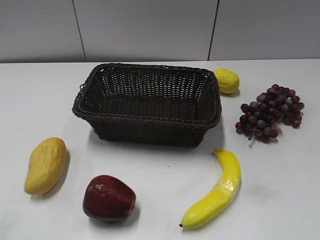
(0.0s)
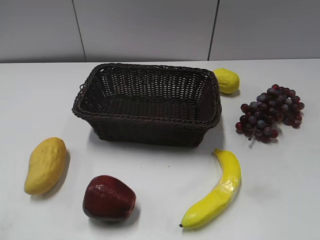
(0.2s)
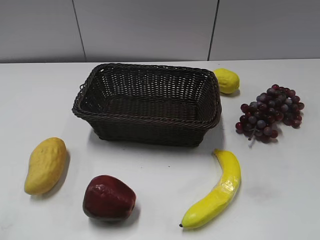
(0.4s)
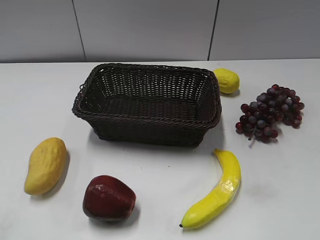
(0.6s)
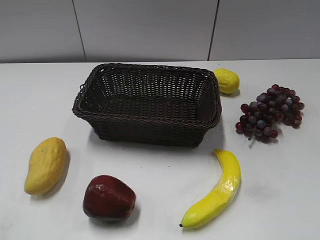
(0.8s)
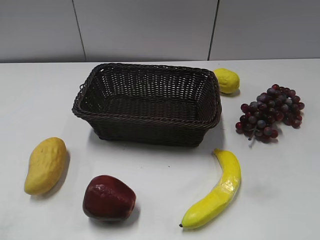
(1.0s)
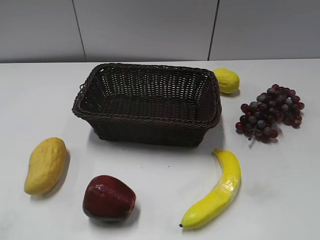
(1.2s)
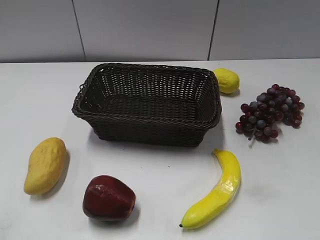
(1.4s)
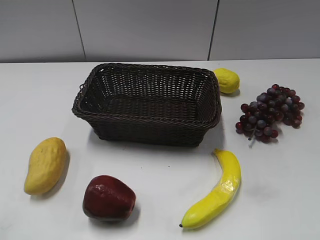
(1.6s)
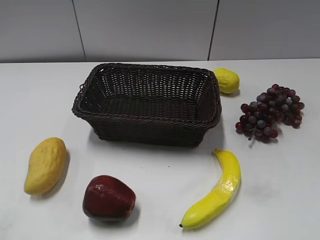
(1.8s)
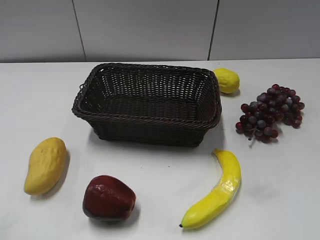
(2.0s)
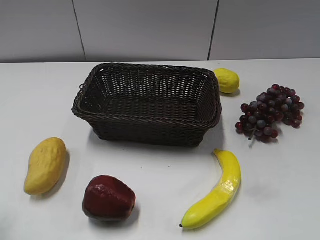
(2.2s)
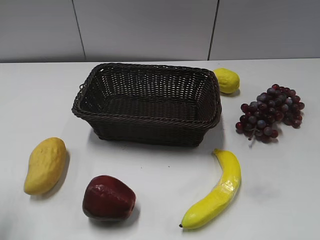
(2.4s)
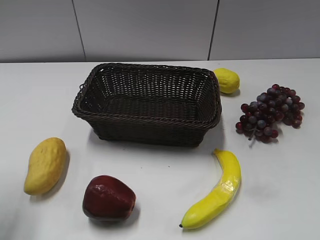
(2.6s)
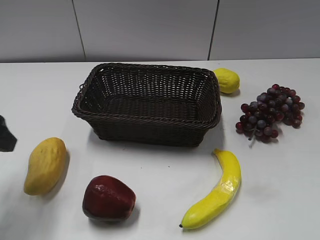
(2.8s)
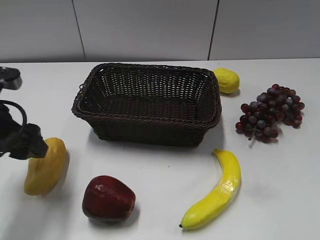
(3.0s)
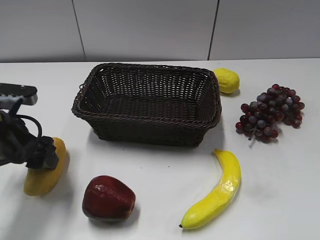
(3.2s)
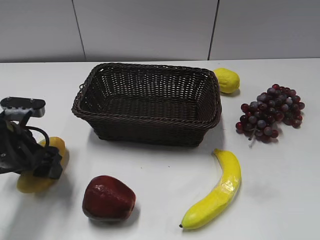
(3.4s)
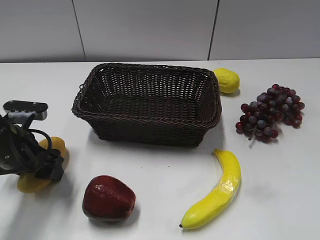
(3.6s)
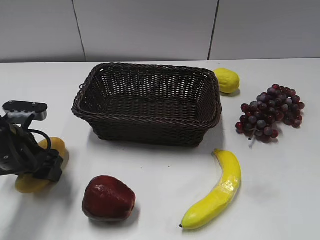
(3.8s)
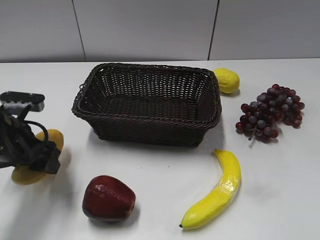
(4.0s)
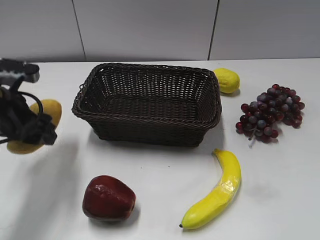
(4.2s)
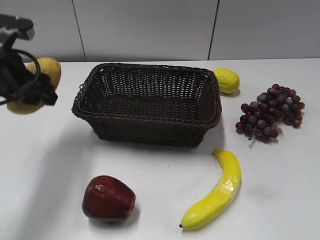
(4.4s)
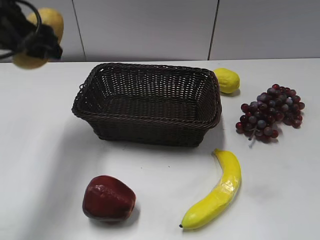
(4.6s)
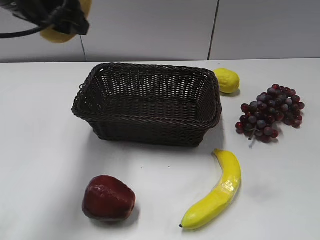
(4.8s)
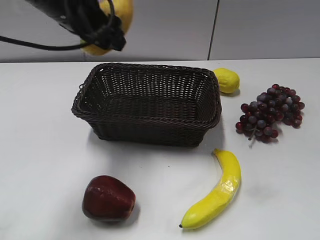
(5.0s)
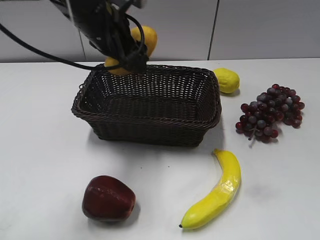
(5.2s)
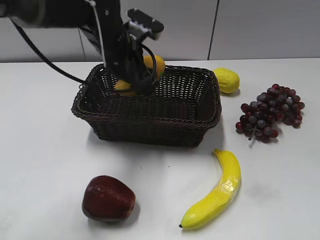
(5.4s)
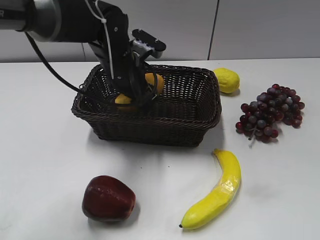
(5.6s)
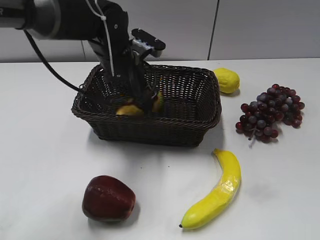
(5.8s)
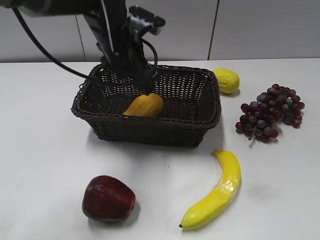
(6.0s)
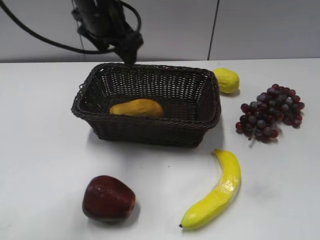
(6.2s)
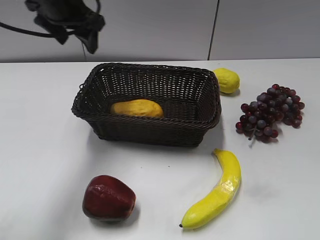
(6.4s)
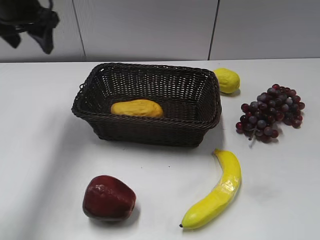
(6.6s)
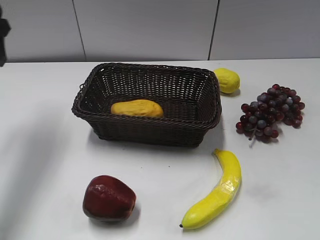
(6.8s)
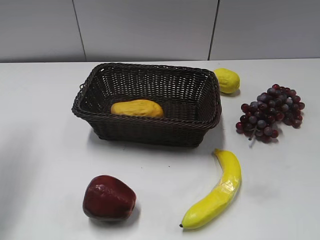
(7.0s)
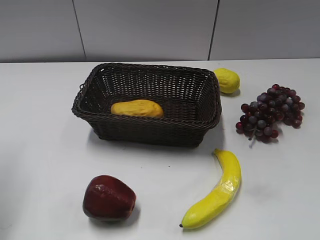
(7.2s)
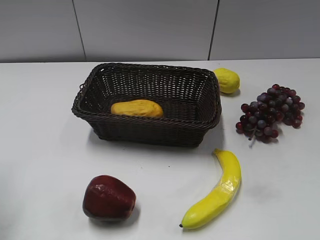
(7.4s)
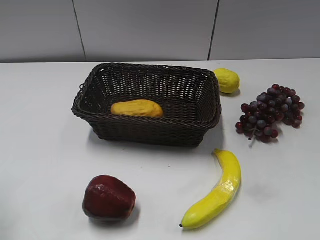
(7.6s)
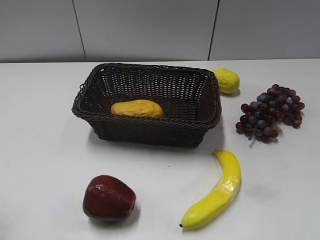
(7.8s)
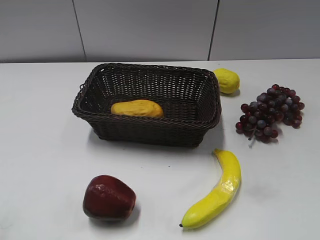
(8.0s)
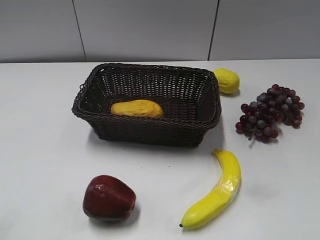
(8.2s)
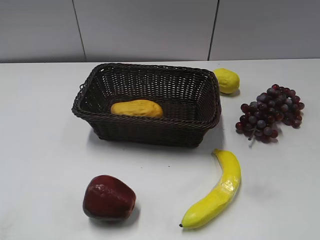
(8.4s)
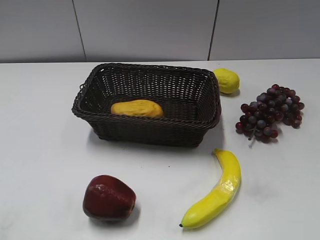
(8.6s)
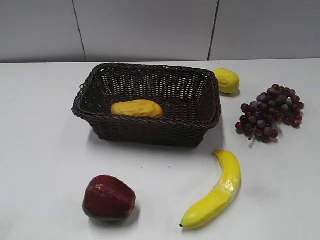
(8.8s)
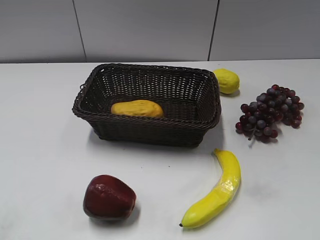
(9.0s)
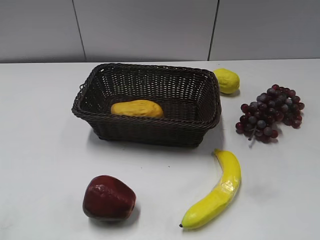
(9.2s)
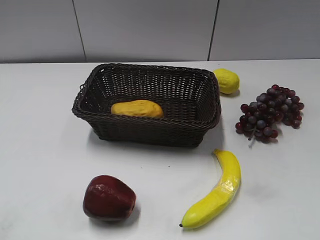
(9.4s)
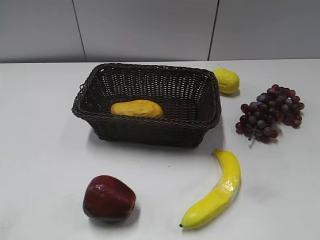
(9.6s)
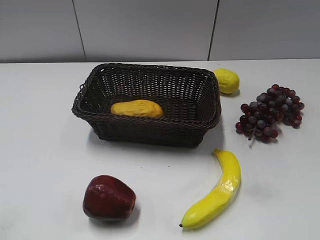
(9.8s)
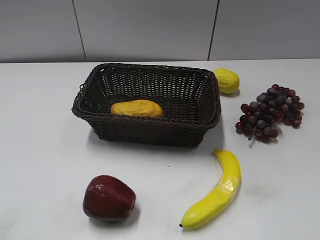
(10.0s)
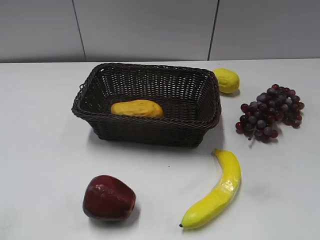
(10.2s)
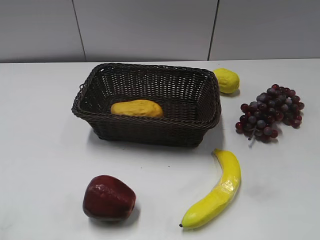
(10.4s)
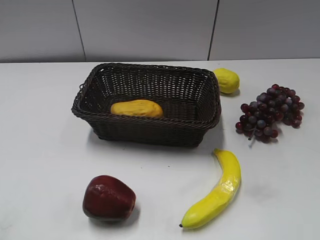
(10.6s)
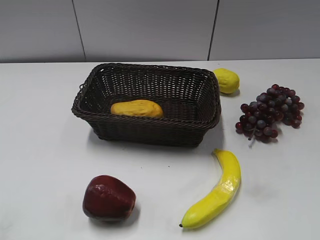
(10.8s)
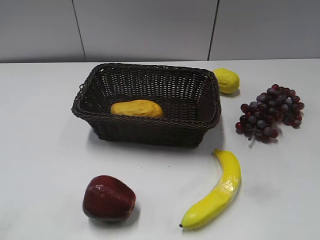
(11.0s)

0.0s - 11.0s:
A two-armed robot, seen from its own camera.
Step, 2.8s - 3.6s: Grasp the mango with left gripper.
Step, 4.0s - 5.8s: Place the mango in the basket with left gripper.
1.6s - 3.2s: The left gripper heads forward, downward and to the right, covering some 30 cm, and opens up.
3.2s - 4.8s: The left gripper moves upward and forward, about 20 cm, and closes.
4.8s - 6.2s: The left gripper moves to the right and forward, some 10 cm, travels downward and back again, some 15 cm each way, and opens.
6.2s - 7.8s: The left gripper heads backward and to the left, covering approximately 35 cm, and closes.
